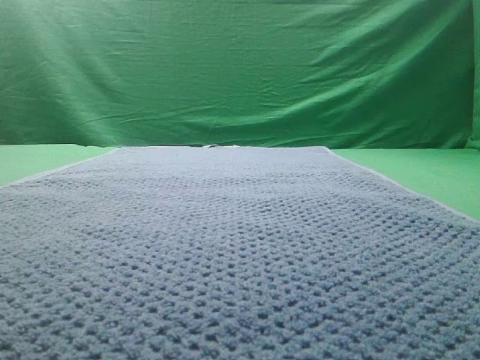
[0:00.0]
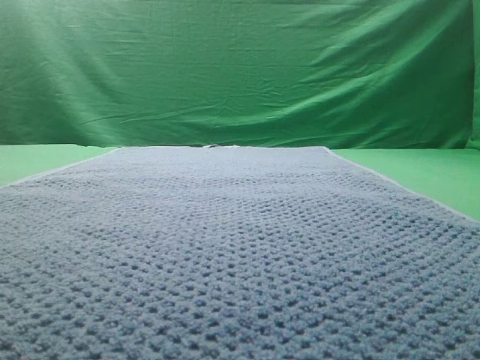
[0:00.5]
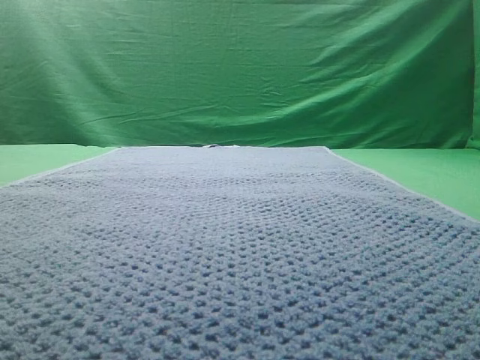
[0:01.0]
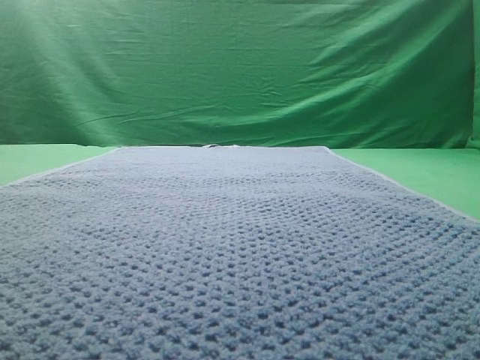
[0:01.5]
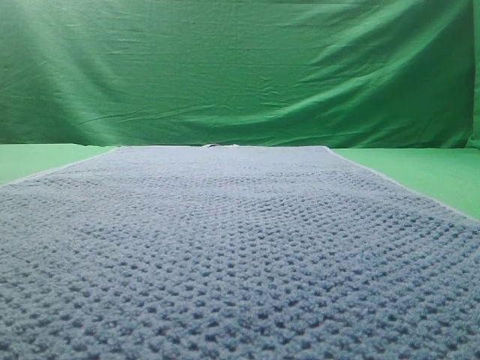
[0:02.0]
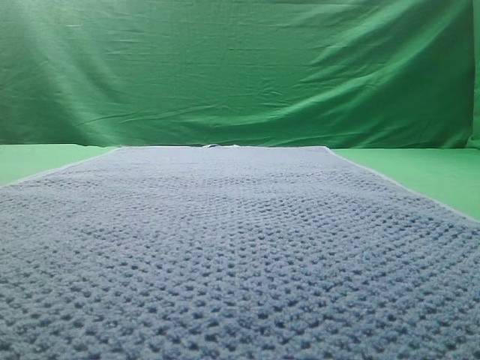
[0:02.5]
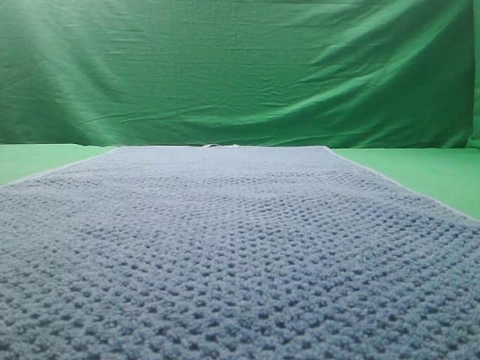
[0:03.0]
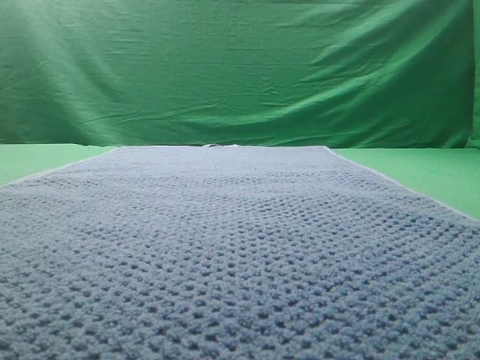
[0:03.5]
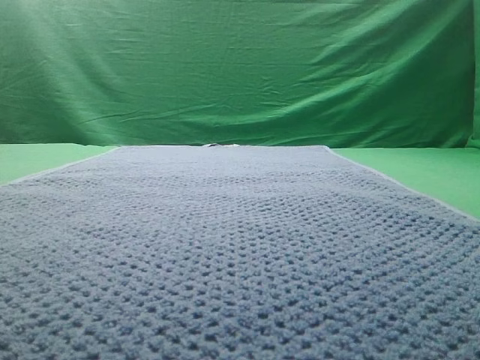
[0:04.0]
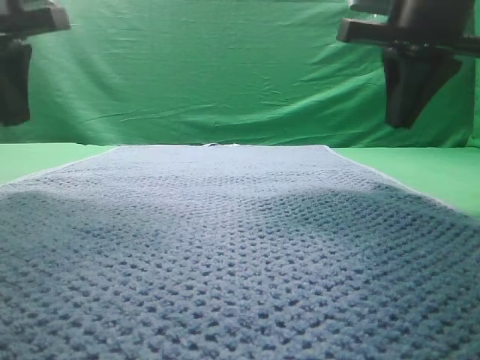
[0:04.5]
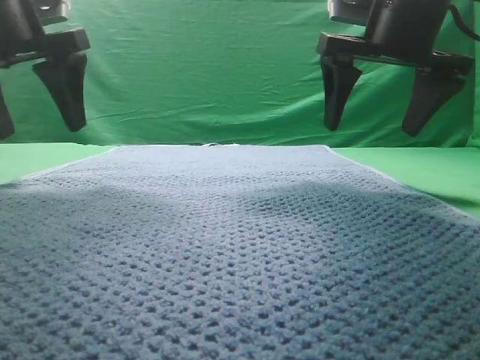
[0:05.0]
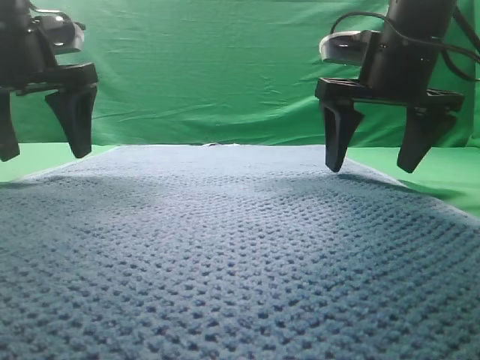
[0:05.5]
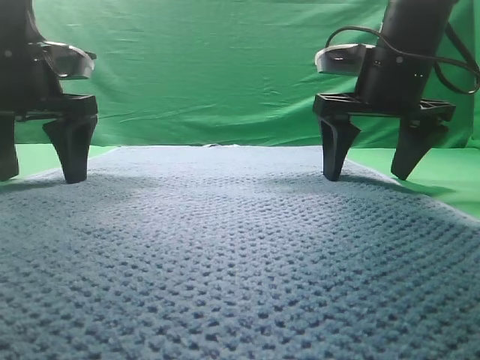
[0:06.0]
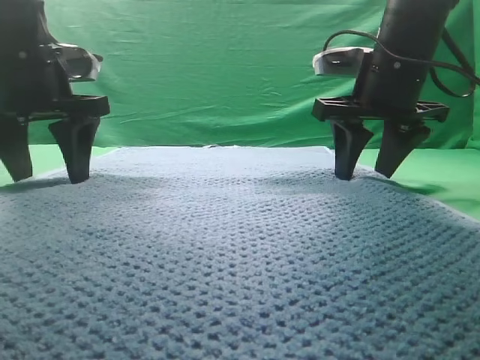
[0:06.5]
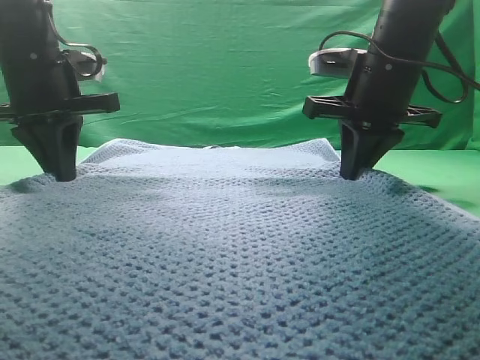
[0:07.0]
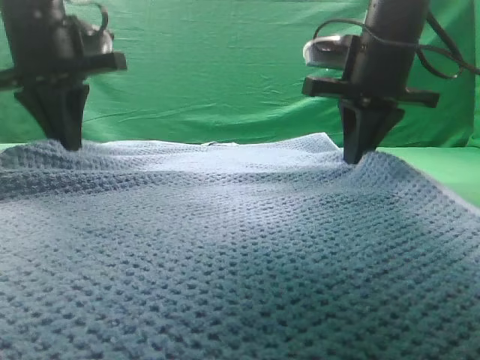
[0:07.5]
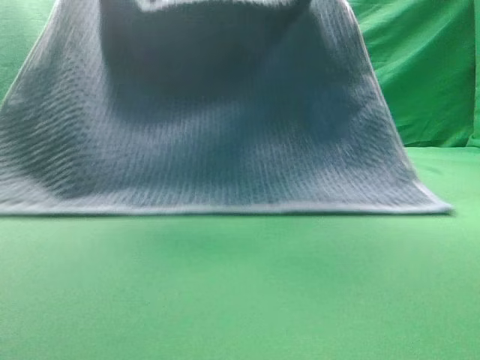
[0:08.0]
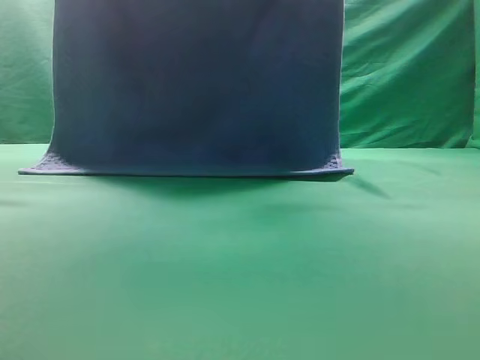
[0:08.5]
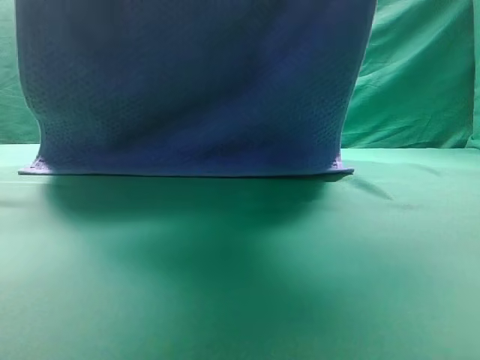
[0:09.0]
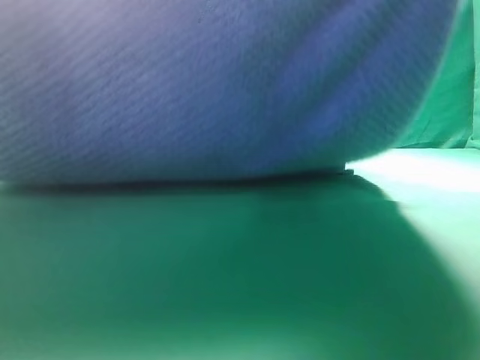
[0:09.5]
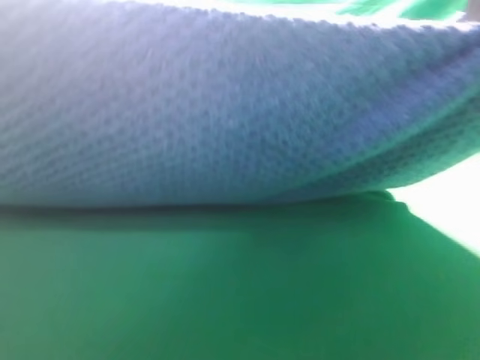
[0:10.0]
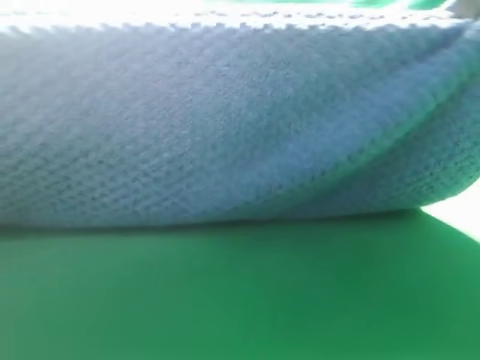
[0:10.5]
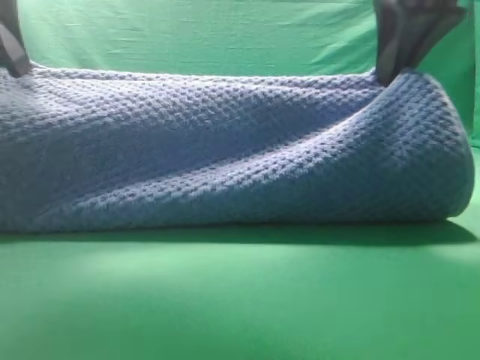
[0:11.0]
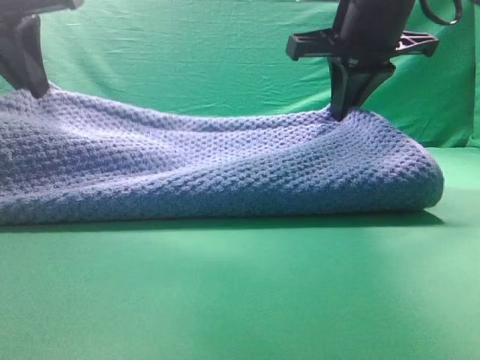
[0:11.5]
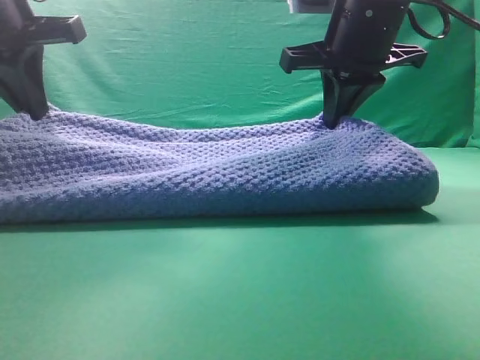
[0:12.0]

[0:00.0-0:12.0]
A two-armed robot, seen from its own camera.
Task of the whole recording: fold the towel on the table twice.
Step, 0:00.0 to 0:08.0: pick up the towel with two arm.

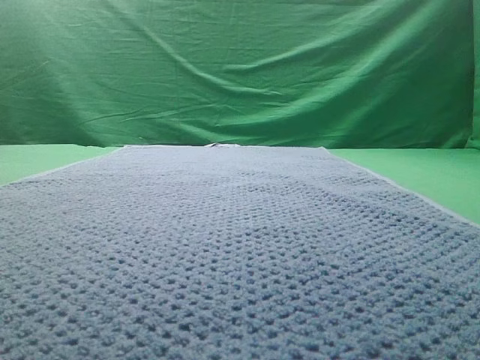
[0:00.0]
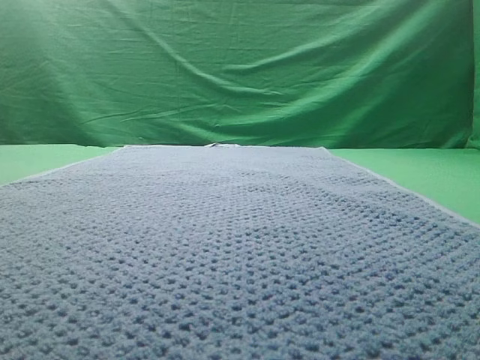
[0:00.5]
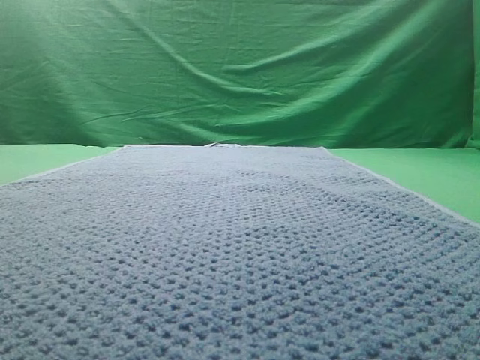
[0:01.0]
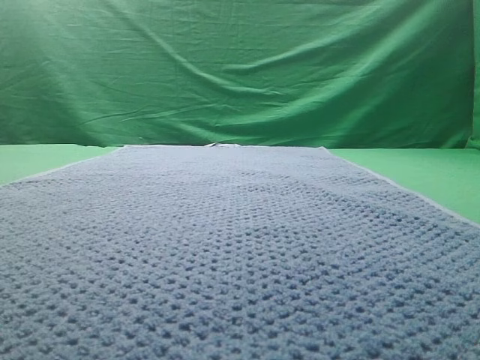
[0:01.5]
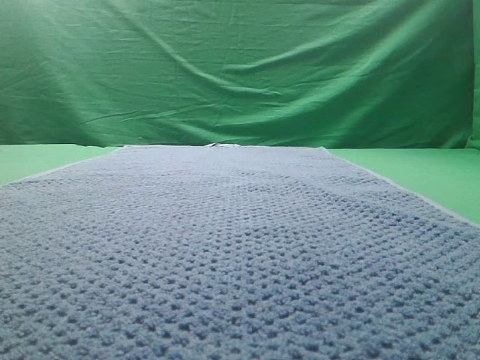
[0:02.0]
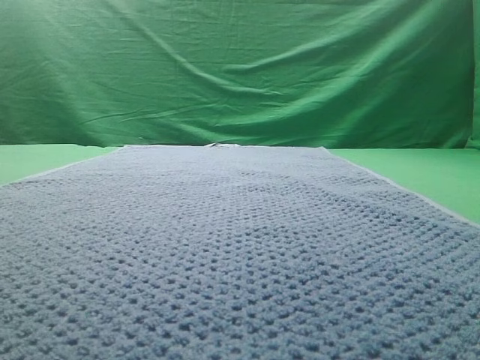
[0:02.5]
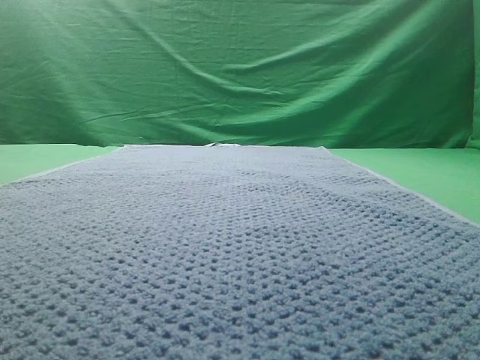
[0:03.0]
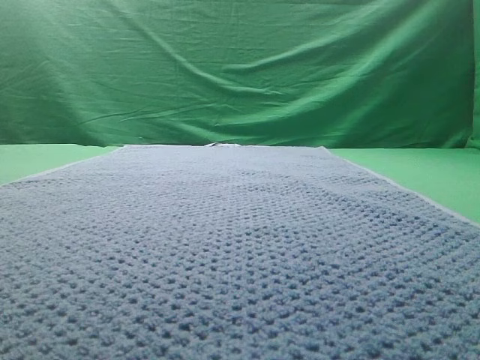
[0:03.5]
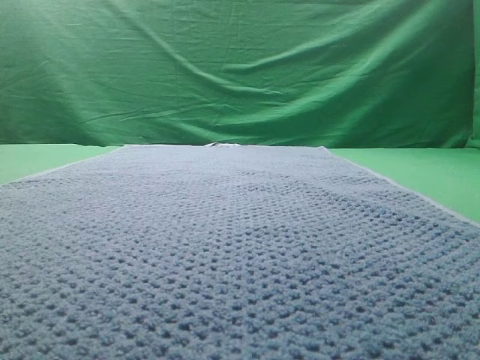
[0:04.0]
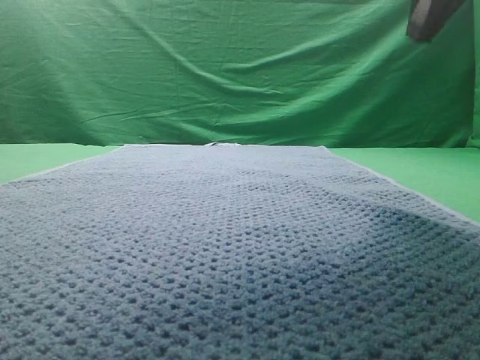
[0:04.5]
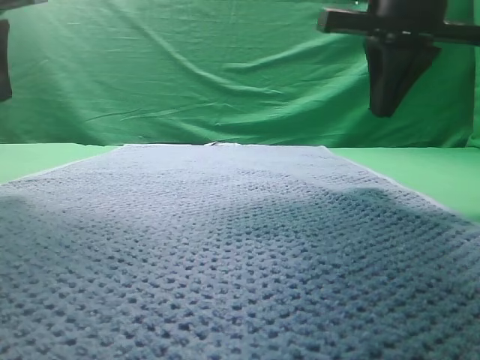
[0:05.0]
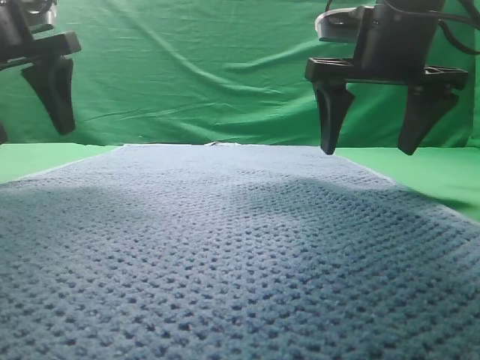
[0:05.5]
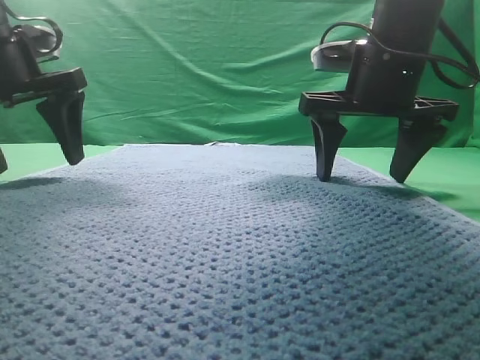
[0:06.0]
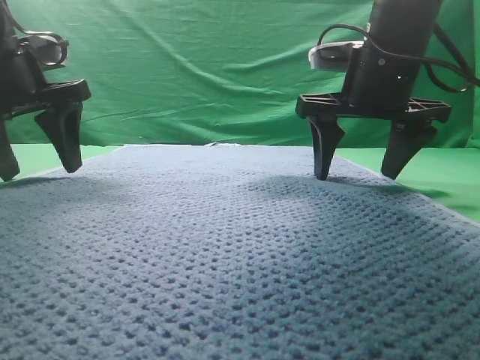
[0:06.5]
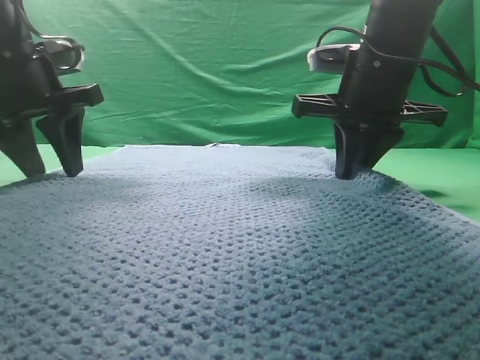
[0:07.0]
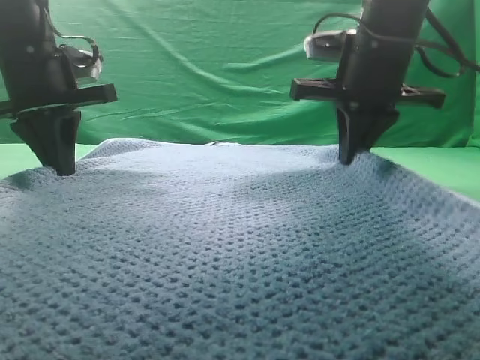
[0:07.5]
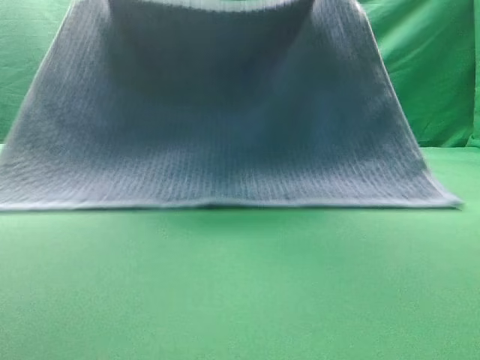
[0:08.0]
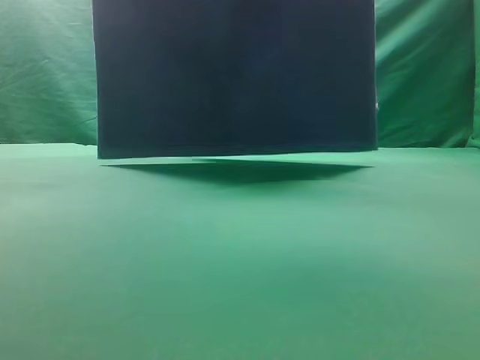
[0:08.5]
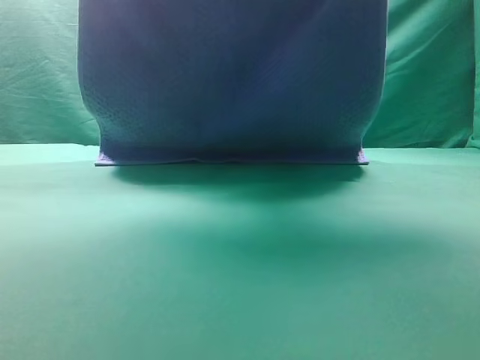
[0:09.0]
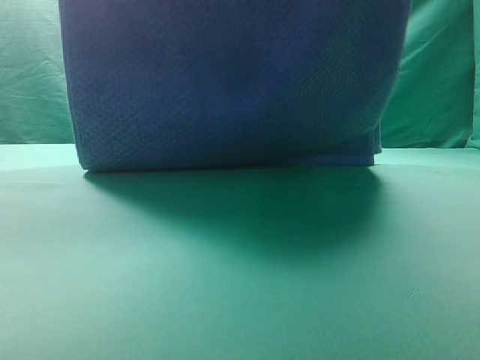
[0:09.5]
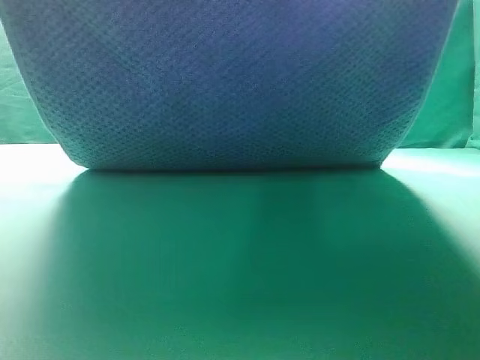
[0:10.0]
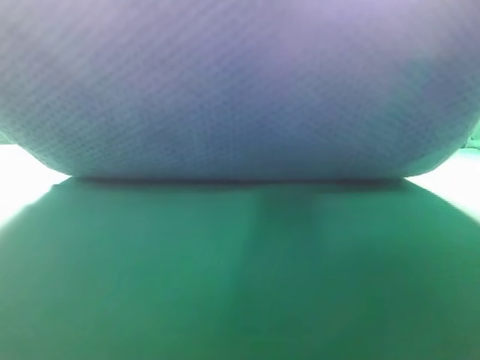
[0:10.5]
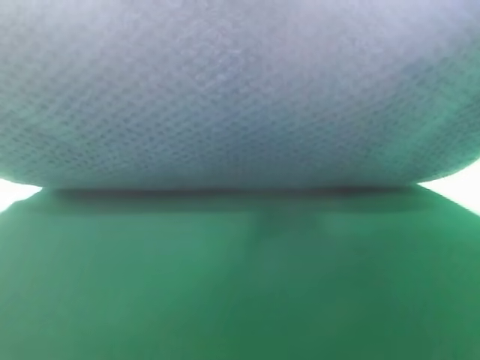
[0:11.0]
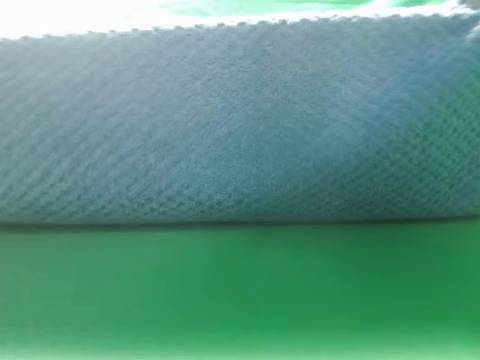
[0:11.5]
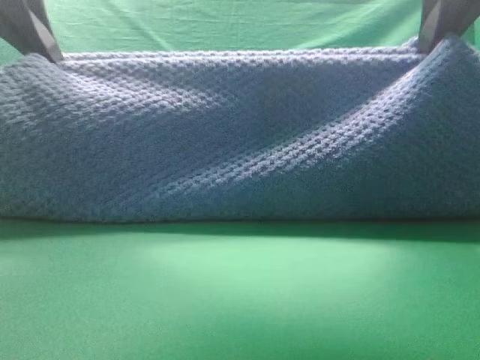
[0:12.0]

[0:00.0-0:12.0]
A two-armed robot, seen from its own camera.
Task of the whole recording: fold the towel on the table twice.
Step, 0:00.0 to 0:08.0: pick up the towel with two arm.

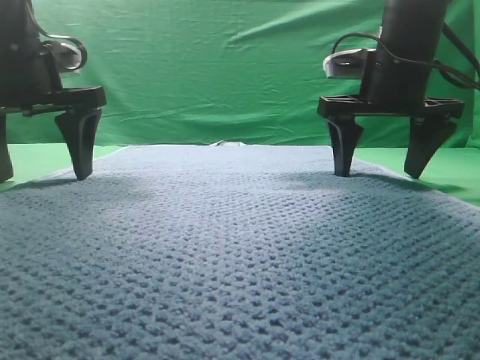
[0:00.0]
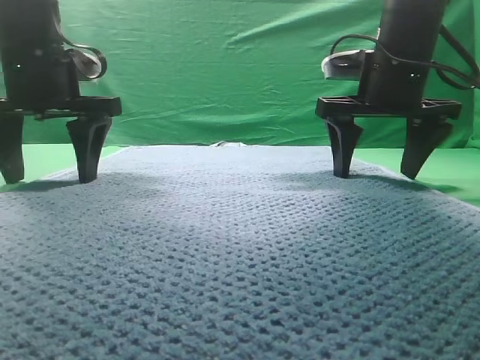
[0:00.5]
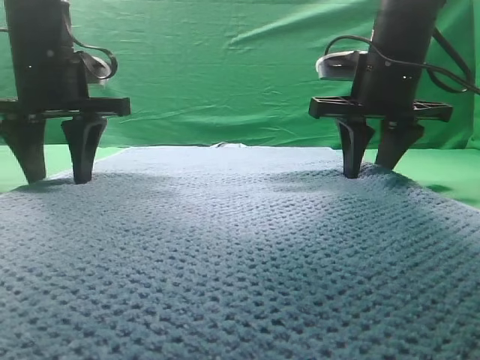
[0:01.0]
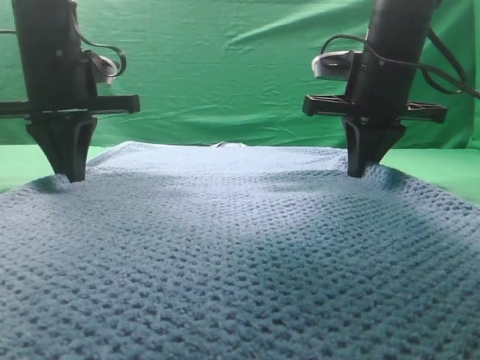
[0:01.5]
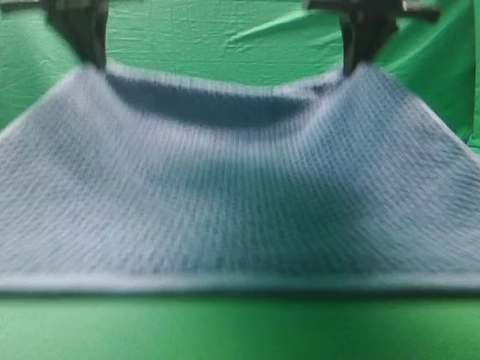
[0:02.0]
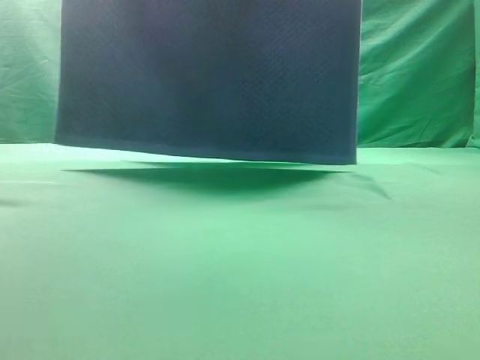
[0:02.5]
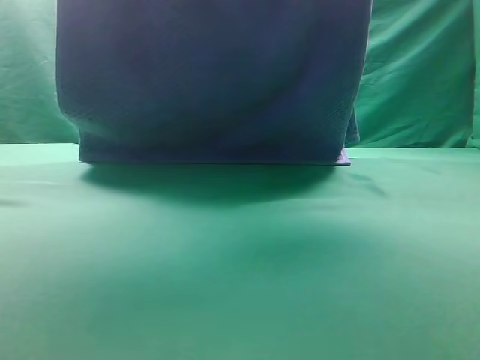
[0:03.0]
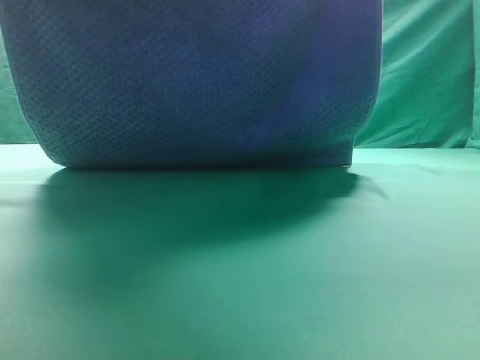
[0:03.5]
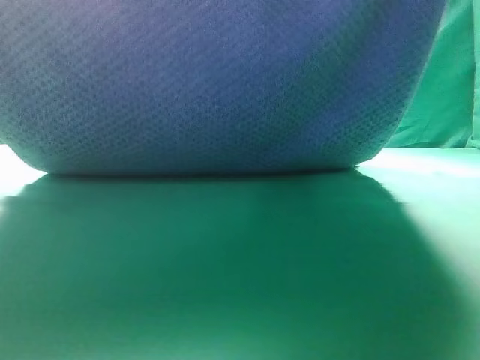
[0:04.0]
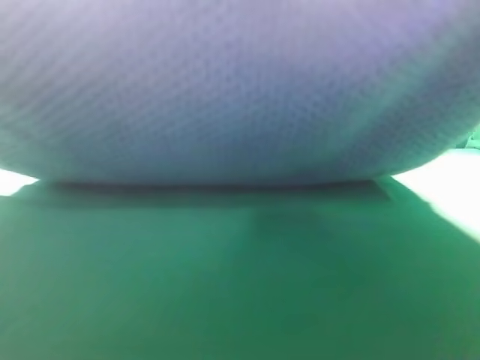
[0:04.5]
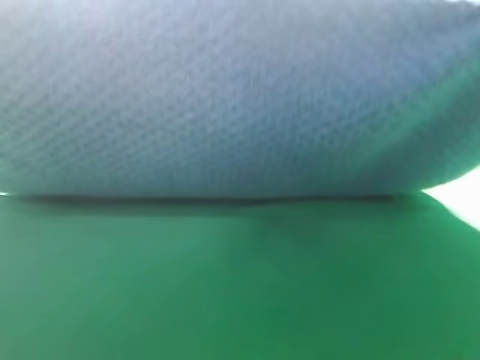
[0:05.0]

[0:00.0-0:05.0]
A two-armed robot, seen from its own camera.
Task of the whole recording: fold the towel on the table twice.
Step, 0:00.0 to 0:02.0: pick up the towel with two arm.
